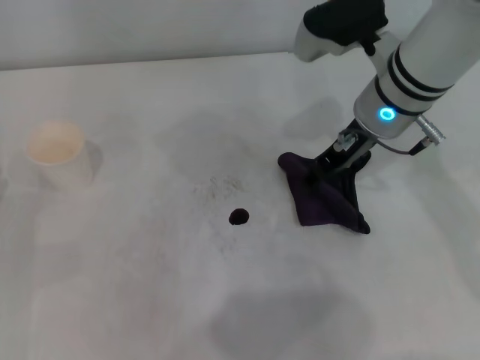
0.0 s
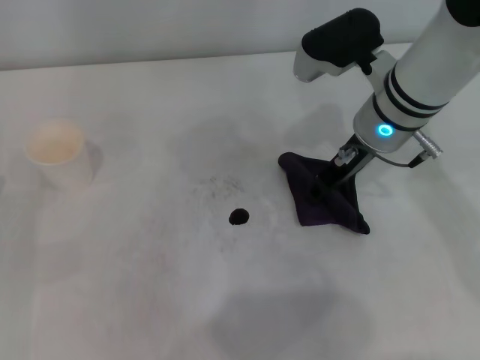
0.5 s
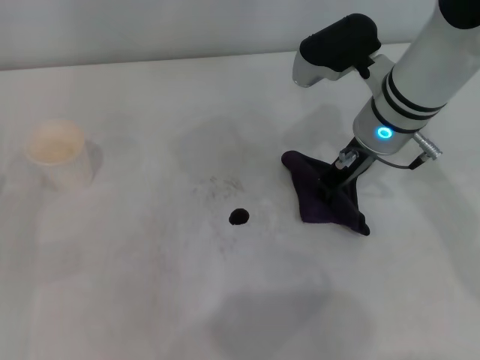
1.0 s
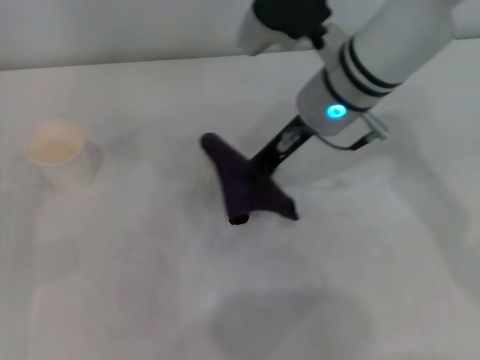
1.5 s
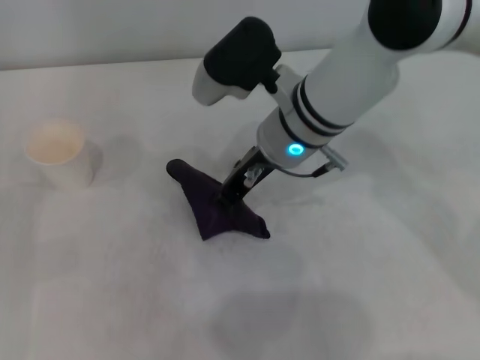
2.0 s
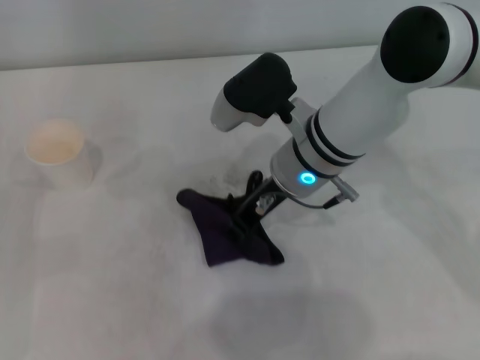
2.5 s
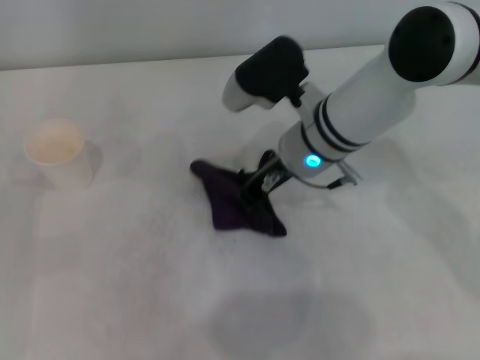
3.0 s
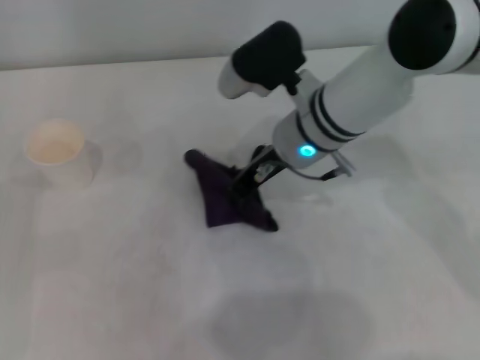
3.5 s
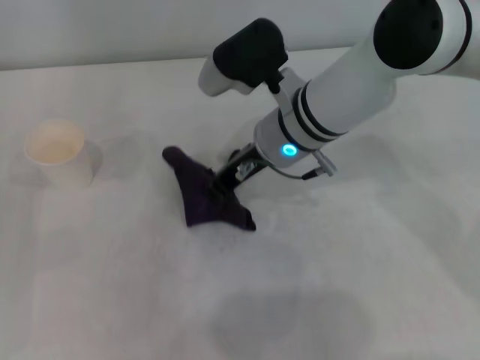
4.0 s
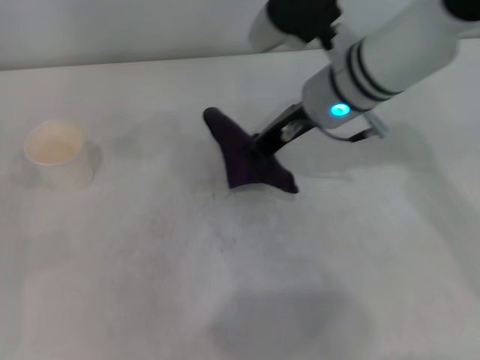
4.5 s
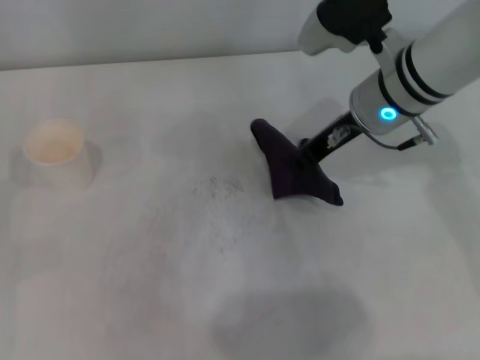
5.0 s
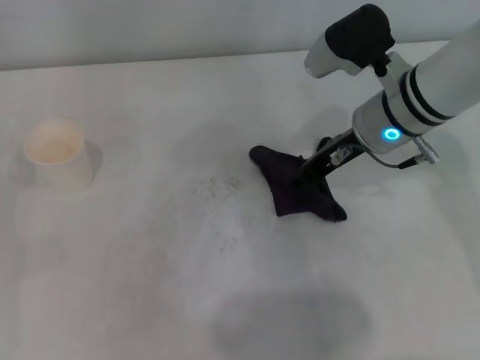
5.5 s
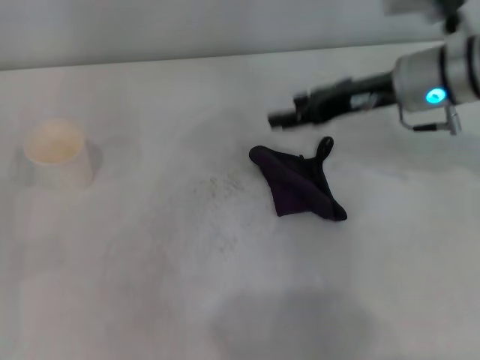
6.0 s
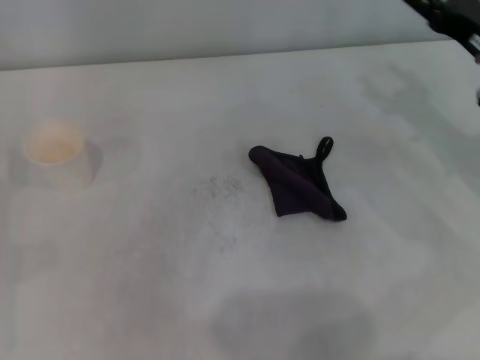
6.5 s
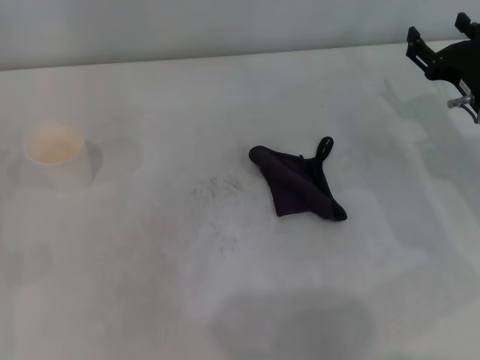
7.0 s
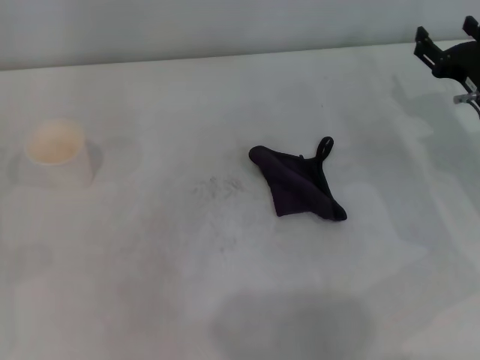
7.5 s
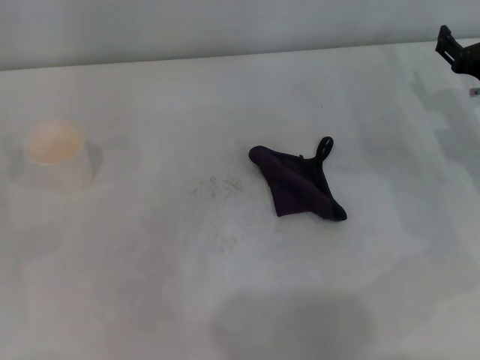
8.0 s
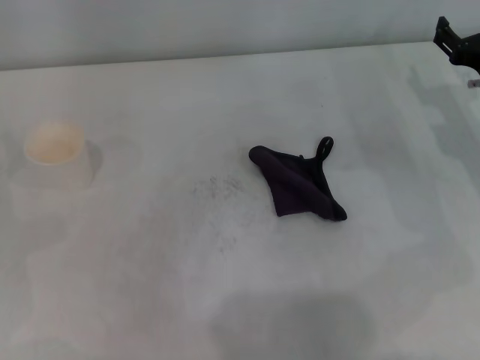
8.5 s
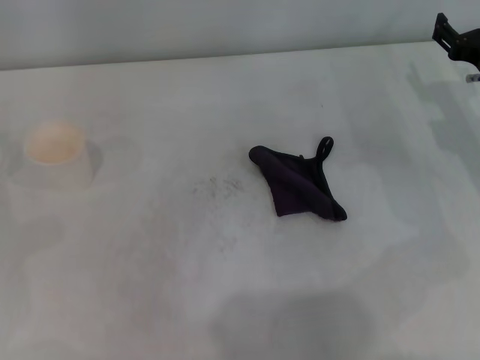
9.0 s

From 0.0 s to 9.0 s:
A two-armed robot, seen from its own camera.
Step, from 1.5 s to 4.5 s: Wipe the stains off the table with the right gripper.
From 0.0 s to 2.0 s: The right gripper is displaced to the left by roughly 10 cm, and closes.
From 2.0 s to 4.5 s: The right gripper ends up about 5 cm from where it was.
From 4.5 s to 7.0 s: The right gripper shifts roughly 20 cm to the right and downward, and opens.
From 7.0 s to 9.0 s: There are only small adjustments of the grippers.
